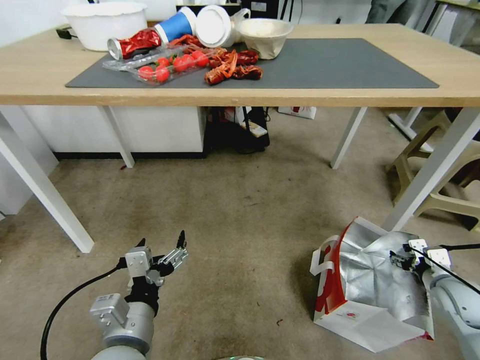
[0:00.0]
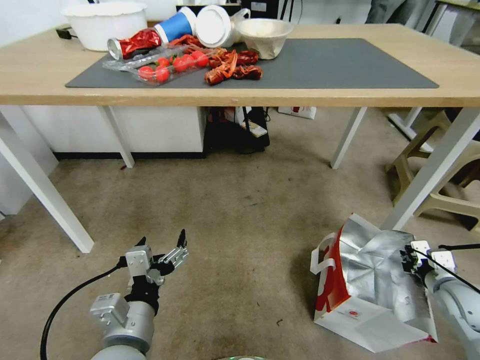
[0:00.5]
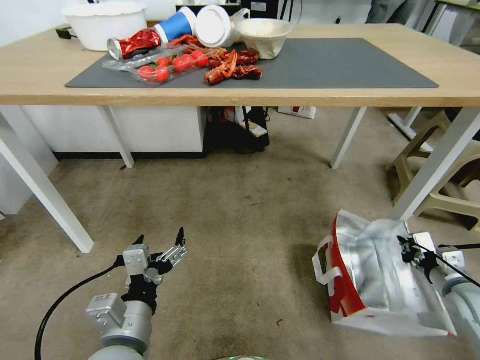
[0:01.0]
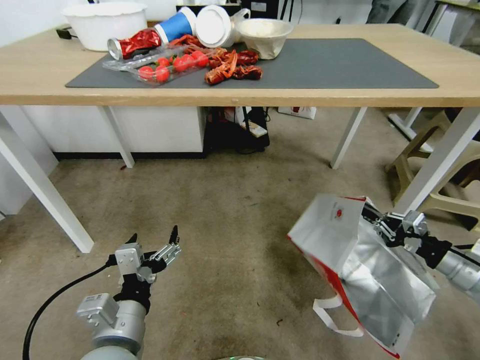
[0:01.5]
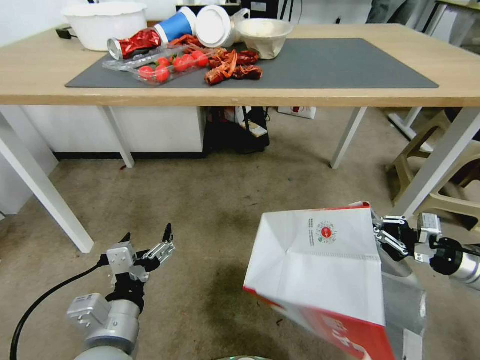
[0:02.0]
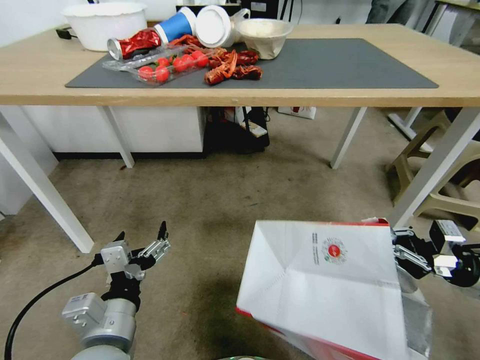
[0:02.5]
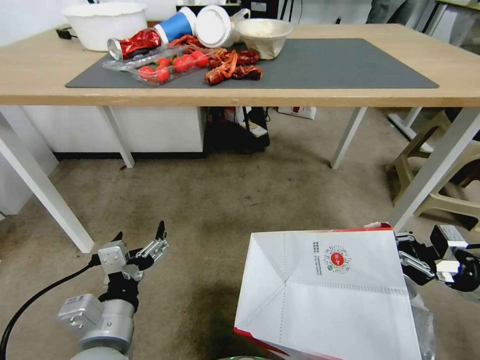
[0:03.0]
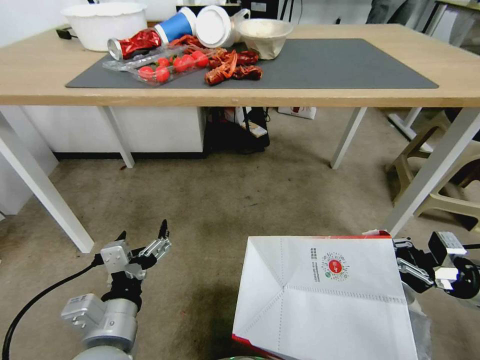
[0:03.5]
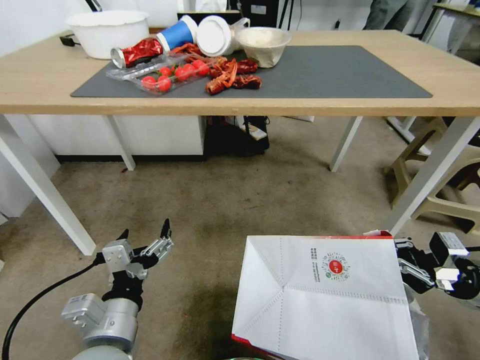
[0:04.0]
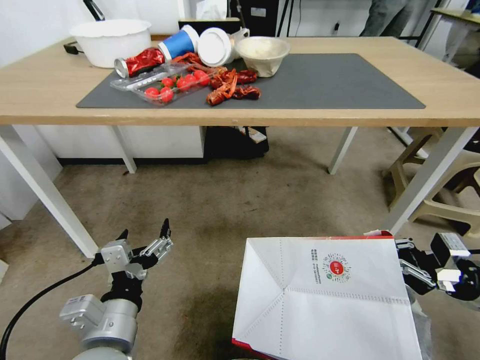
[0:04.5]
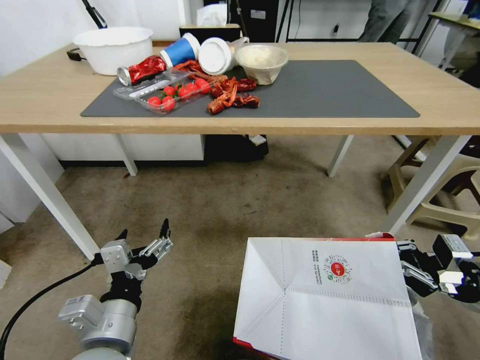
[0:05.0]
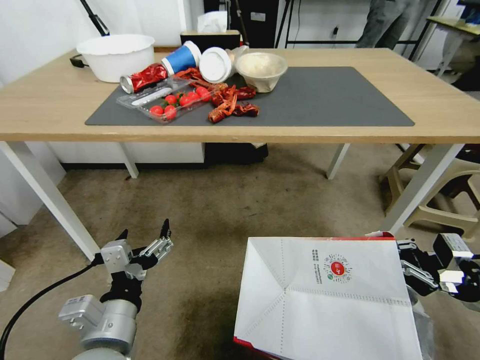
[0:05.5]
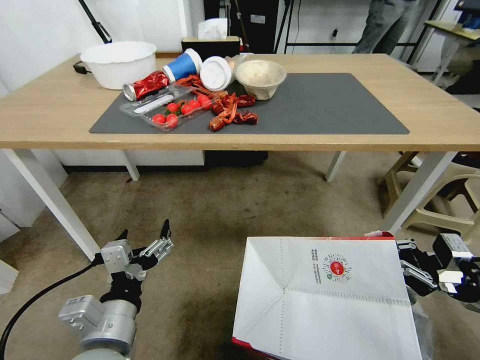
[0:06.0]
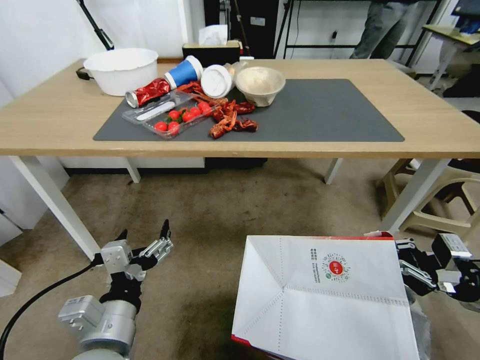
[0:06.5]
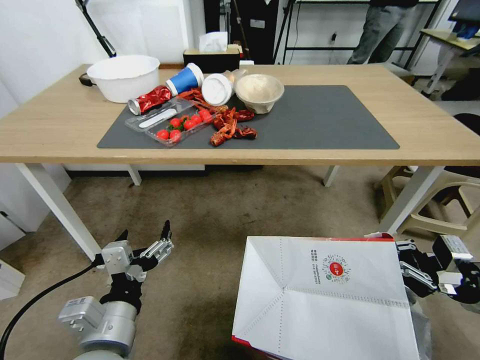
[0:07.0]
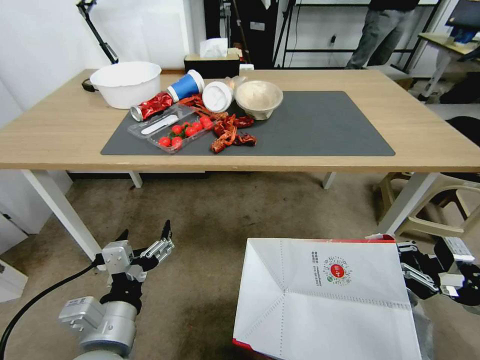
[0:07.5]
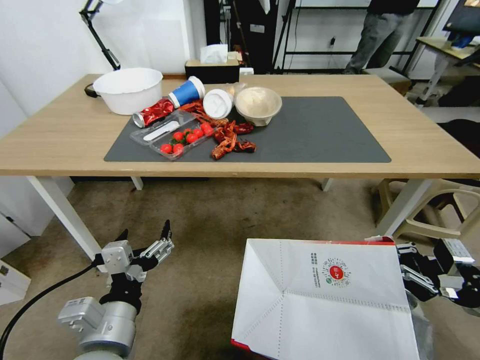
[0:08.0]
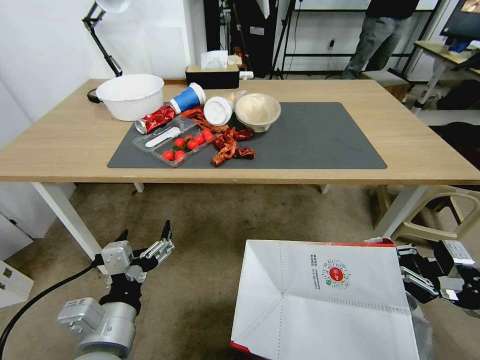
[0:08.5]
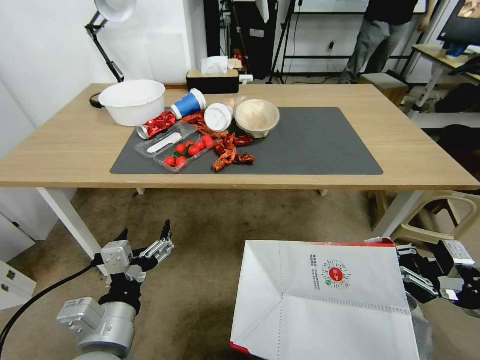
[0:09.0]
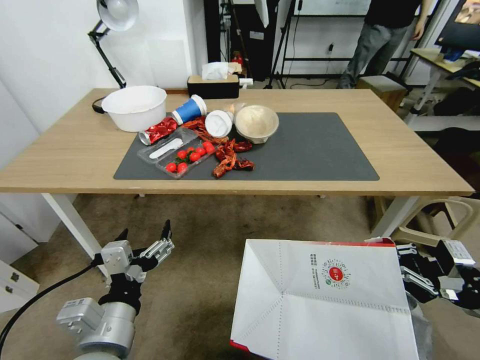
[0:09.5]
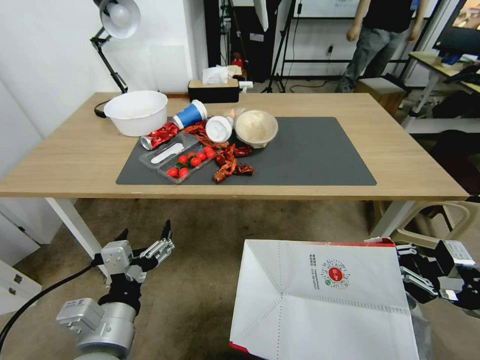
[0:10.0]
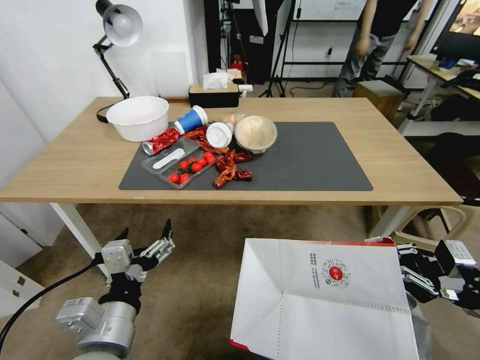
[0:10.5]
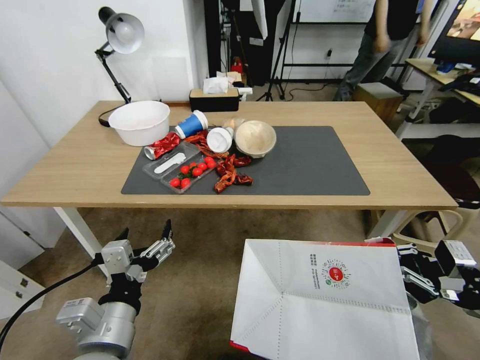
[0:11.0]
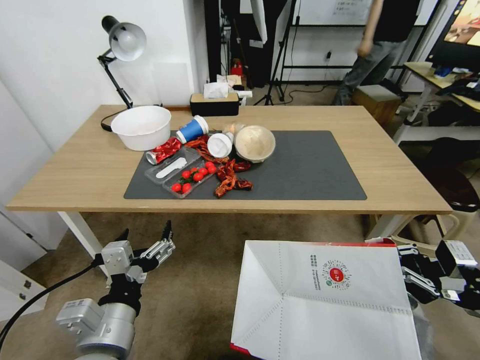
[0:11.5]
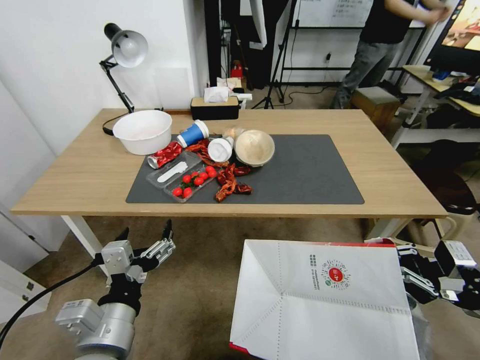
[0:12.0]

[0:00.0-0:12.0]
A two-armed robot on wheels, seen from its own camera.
Task of the whole recording: Pick up the food delivery bag from the floor and place it on the table.
0:00.0 to 0:02.0: The right gripper shifts some 10 cm upward, and closes its fingers.

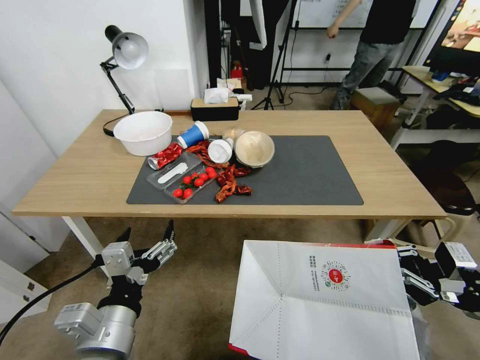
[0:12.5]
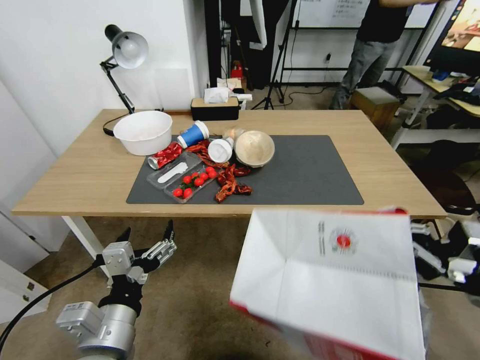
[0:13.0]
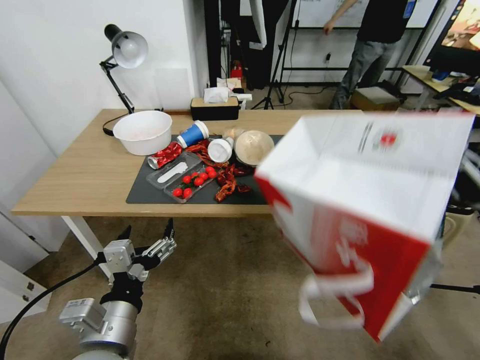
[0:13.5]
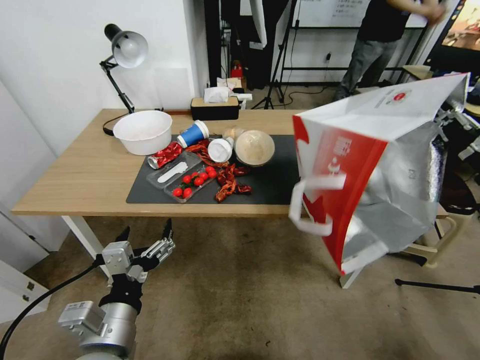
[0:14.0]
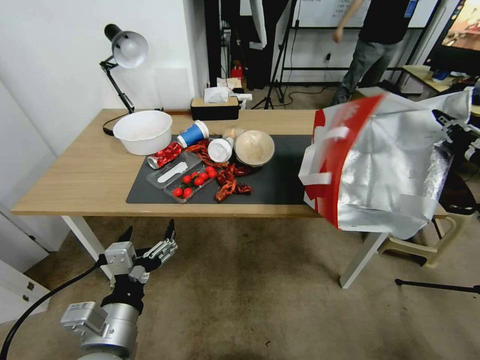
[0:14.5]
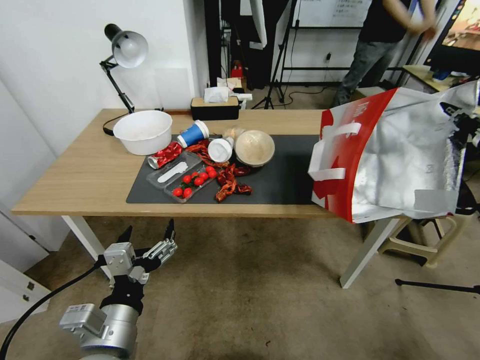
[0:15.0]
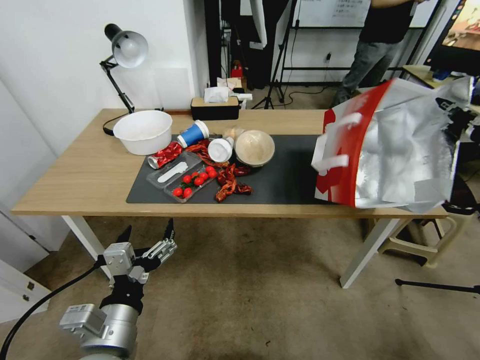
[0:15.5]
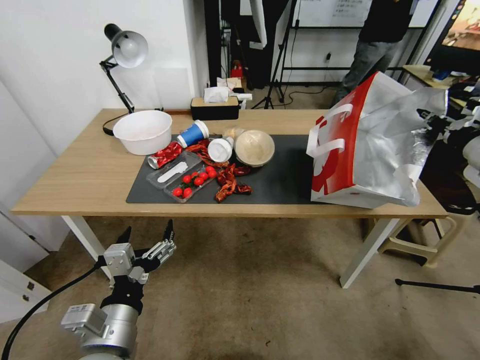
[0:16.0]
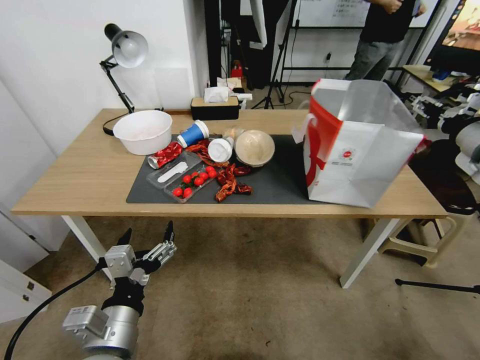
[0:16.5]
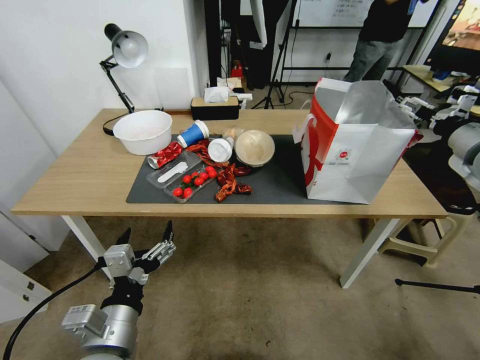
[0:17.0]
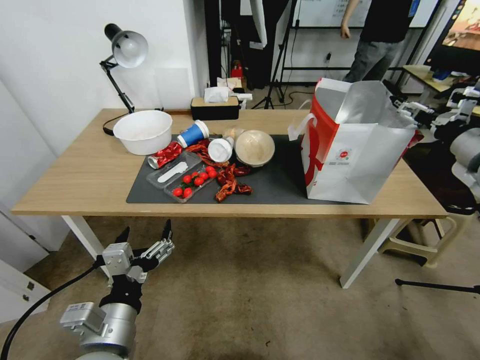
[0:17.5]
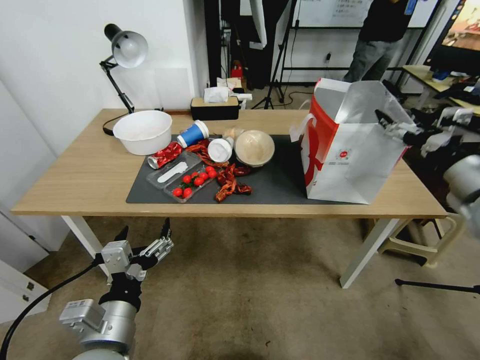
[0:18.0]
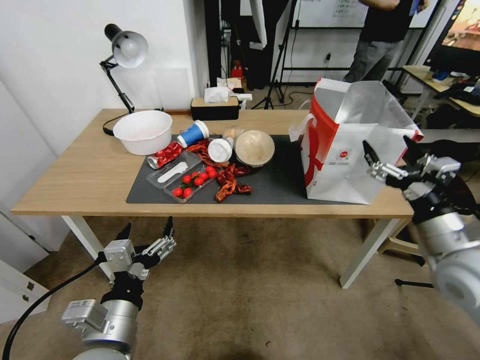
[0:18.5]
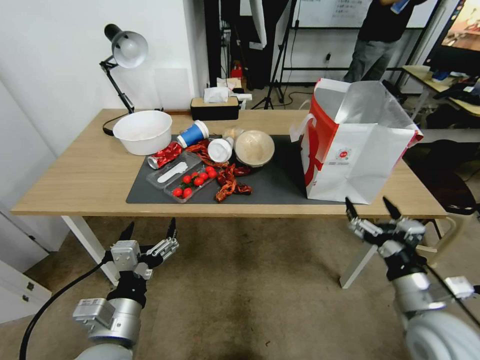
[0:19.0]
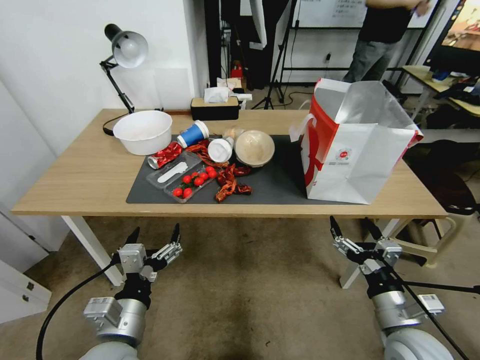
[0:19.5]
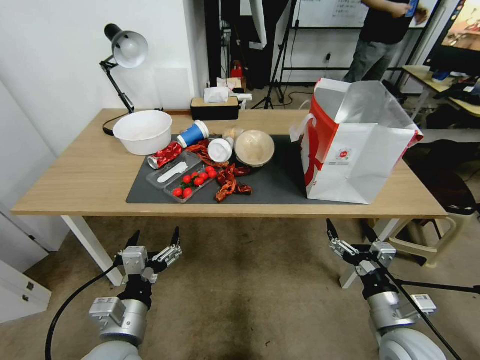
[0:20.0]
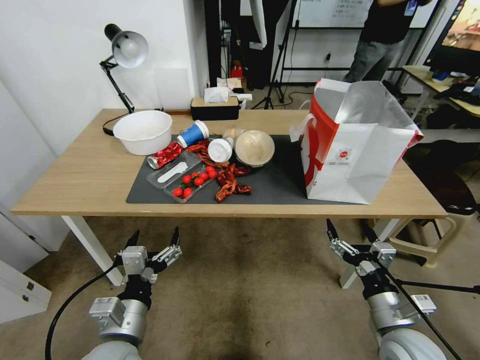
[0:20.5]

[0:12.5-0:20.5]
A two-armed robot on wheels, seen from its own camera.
Task of the whole recording: Pick up the food delivery bag from the floor and place it on the table.
0:12.5 to 0:14.5: The right gripper shifts some 15 cm upward and forward.
0:14.5 to 0:16.5: The right gripper moves forward, some 10 cm, and opens.
0:16.5 to 0:18.5: The right gripper travels backward, downward and to the left by some 20 cm, and opens.
0:18.5 to 0:20.5: The right gripper heads downward, backward and to the left, covering approximately 20 cm. Meanwhile the left gripper goes some 5 cm downward.
